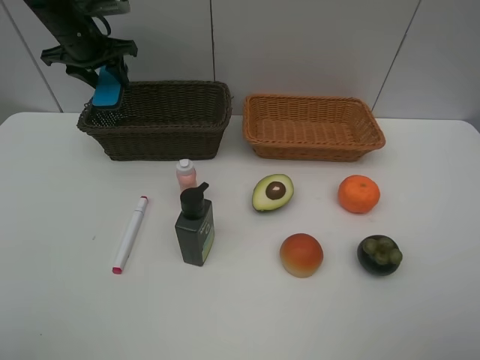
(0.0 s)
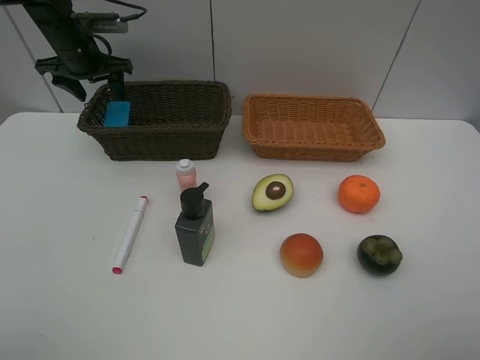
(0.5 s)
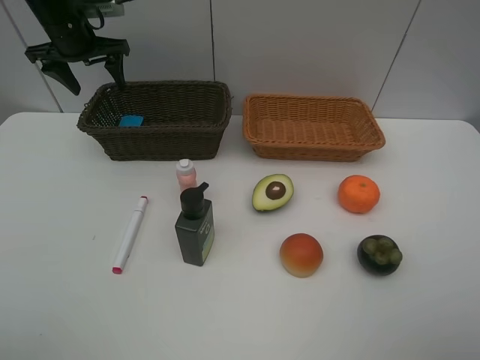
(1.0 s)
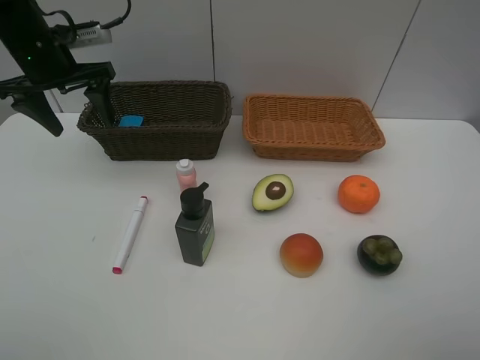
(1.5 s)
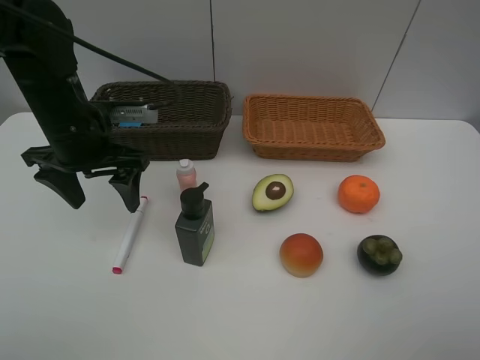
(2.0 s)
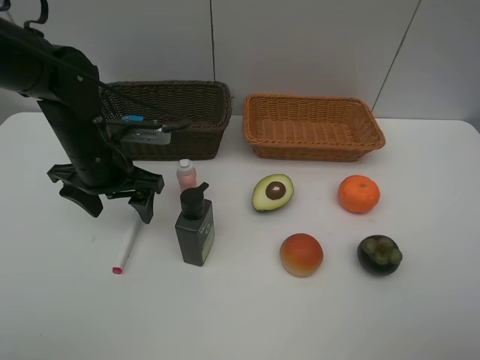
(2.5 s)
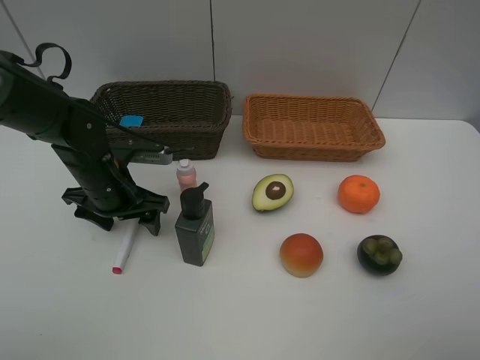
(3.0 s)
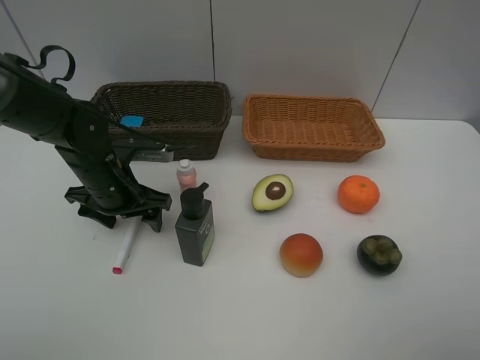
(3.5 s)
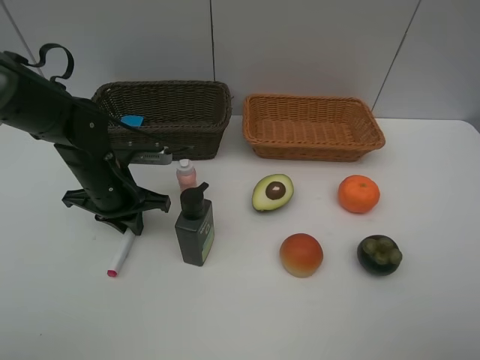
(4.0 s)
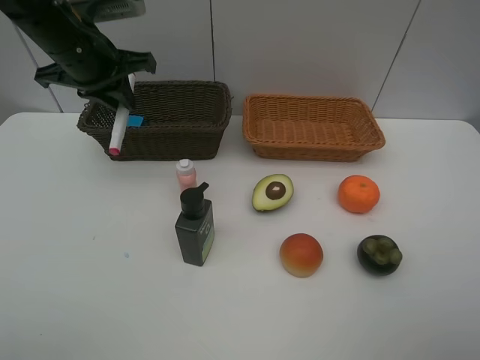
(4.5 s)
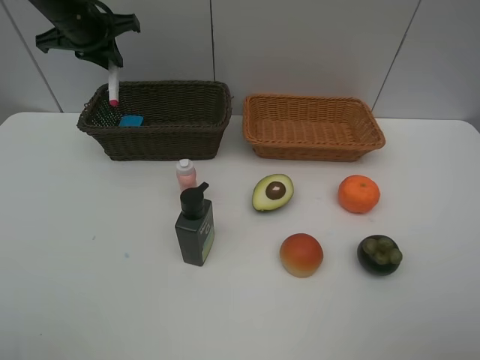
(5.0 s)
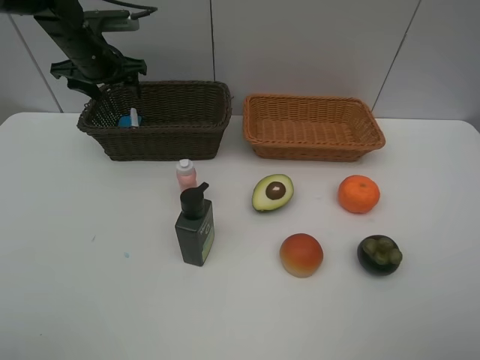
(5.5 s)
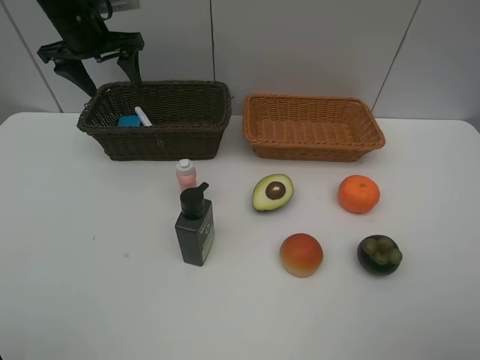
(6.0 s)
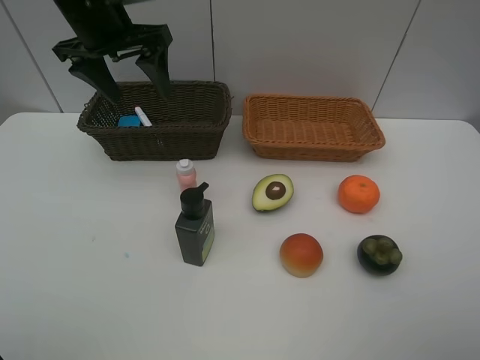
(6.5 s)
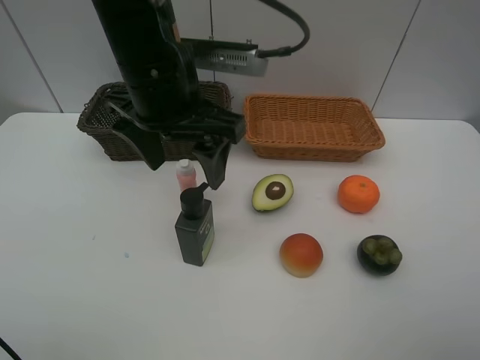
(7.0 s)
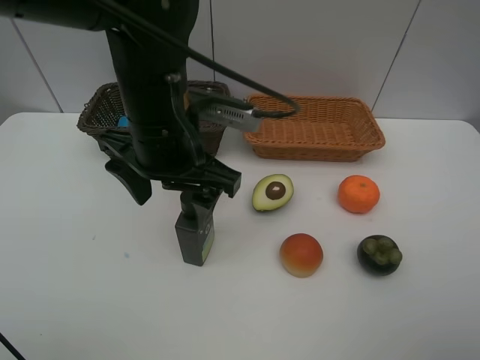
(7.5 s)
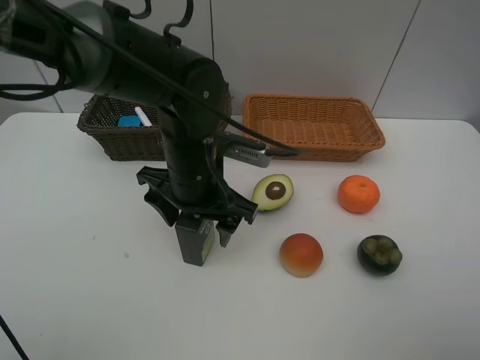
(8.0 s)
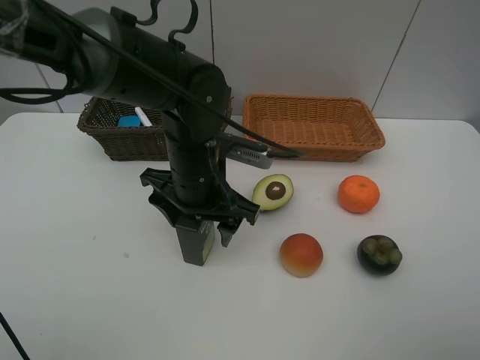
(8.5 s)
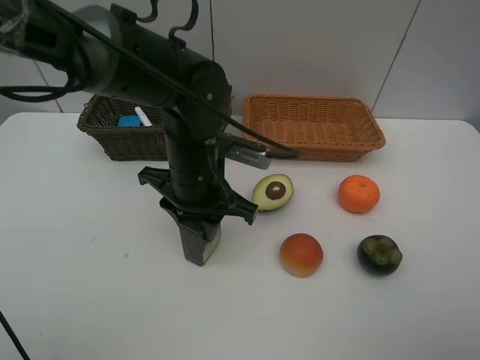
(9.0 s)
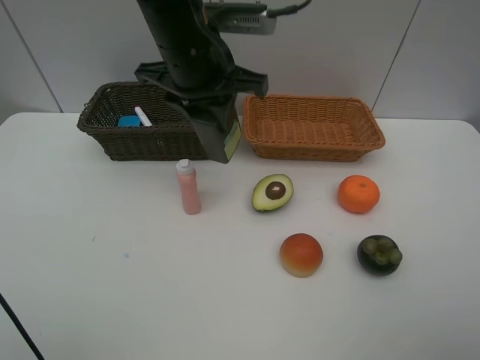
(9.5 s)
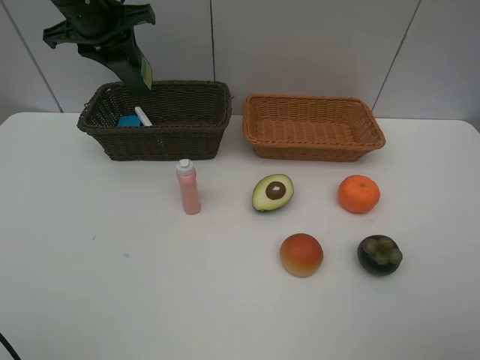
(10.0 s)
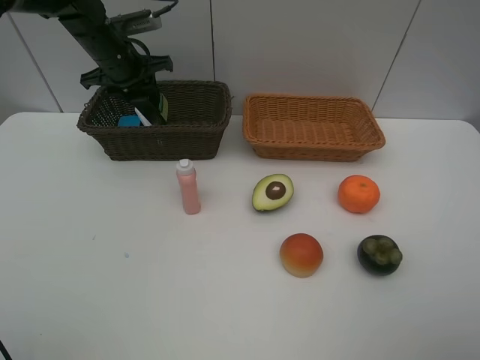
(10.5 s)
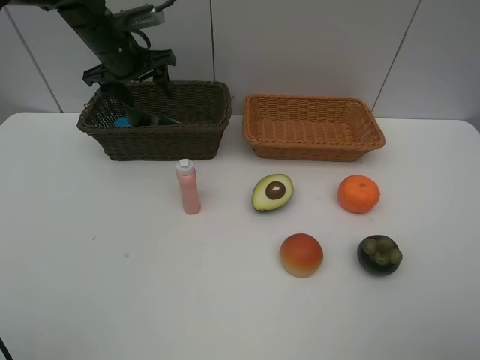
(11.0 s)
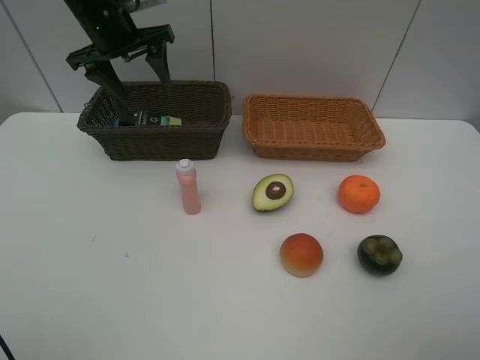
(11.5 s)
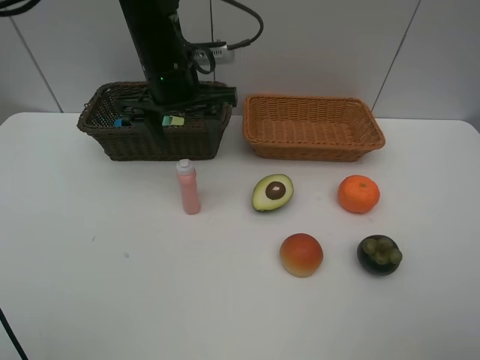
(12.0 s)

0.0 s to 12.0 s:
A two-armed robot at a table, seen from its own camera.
Task of the whole recording: Place multiple objects separately in different baskets.
Step, 1.0 to 4.0 s: Pick up the red marker with left gripper.
Step, 4.5 to 5.5 s: Place the red marker in the dark basket with left gripper.
Step, 6.0 to 9.0 s: Pick up the hard facial cleanser with left gripper.
Step, 9.5 to 10.5 s: Place the hard facial cleanser in the dark basket with left gripper.
0.0 to 2.0 s: The left gripper travels backward by approximately 20 cm, and opens.
2.0 to 4.0 s: The left gripper goes approximately 10 cm downward, and closes up.
4.0 to 6.0 s: The left gripper is displaced forward and upward by some 25 cm, and opens up.
6.0 to 8.0 s: The left gripper heads backward, to the right and downward, covering approximately 30 cm.
8.0 to 10.0 s: The left gripper heads forward, to the left and upward, covering roughly 30 cm, and closes its fingers.
10.0 to 12.0 s: The left gripper travels to the right and backward by approximately 15 cm, and opens its fingers.

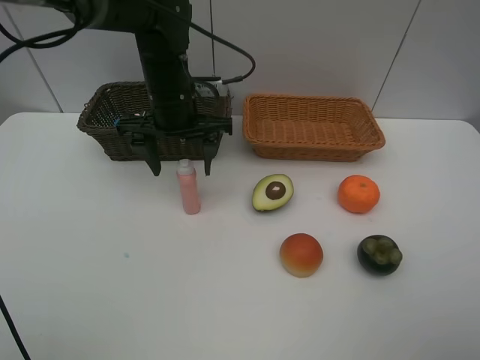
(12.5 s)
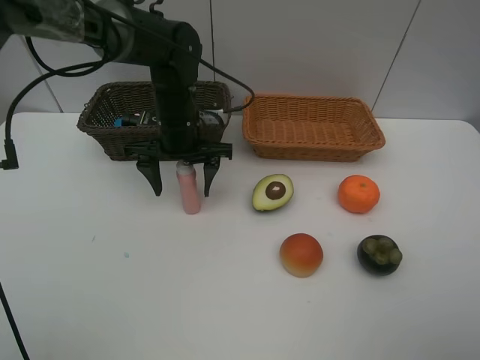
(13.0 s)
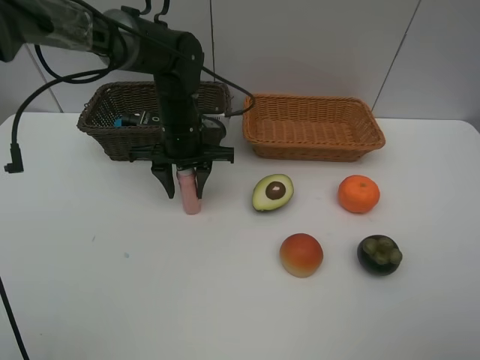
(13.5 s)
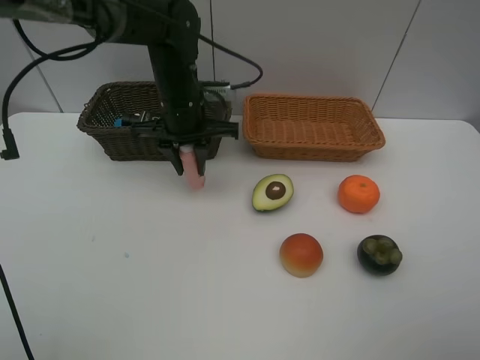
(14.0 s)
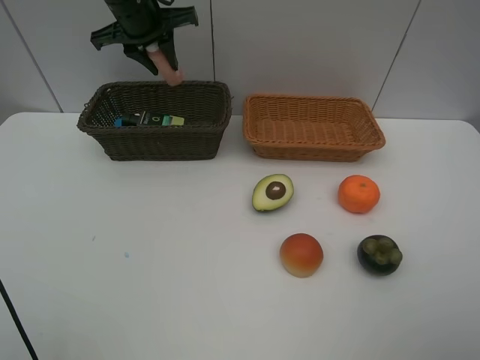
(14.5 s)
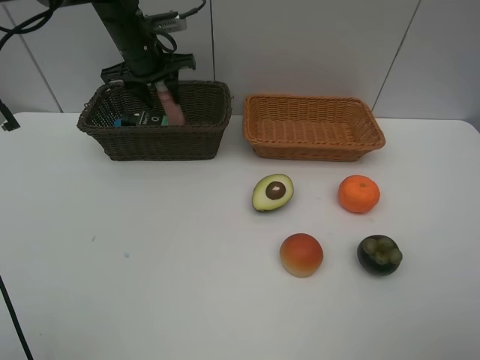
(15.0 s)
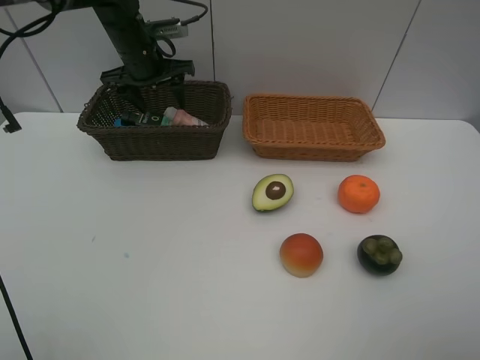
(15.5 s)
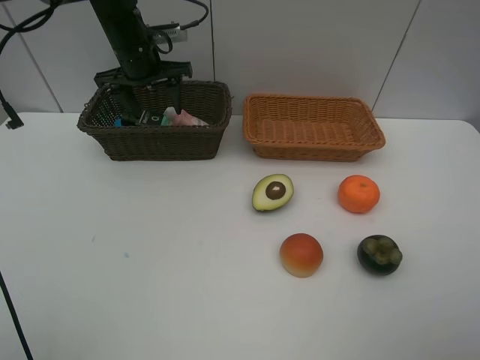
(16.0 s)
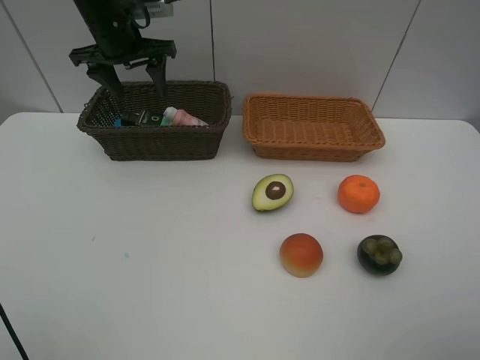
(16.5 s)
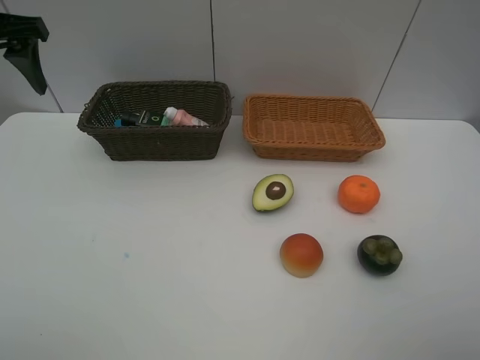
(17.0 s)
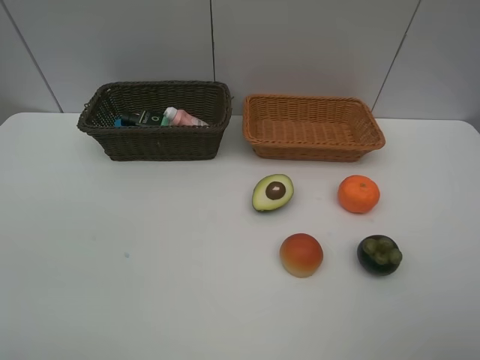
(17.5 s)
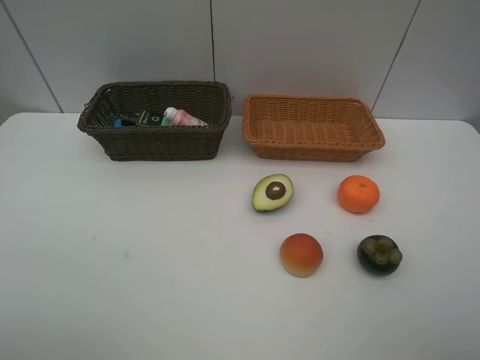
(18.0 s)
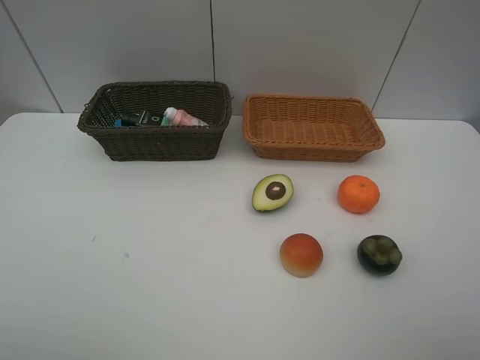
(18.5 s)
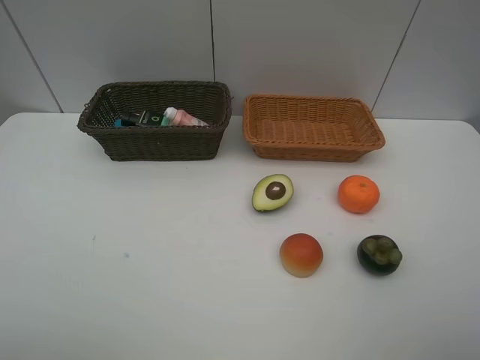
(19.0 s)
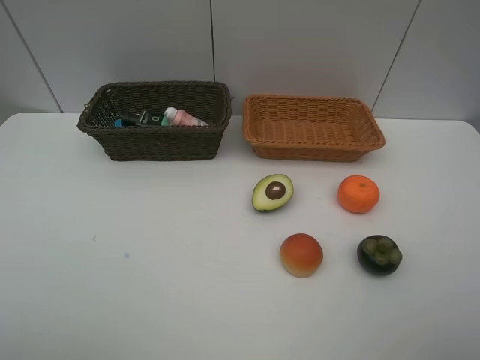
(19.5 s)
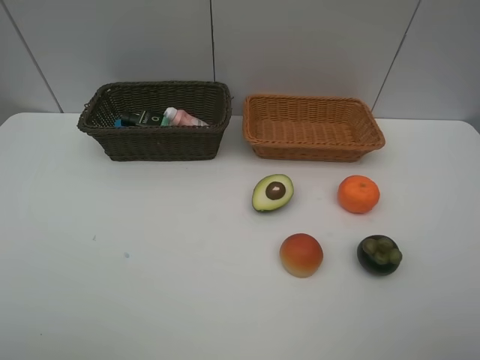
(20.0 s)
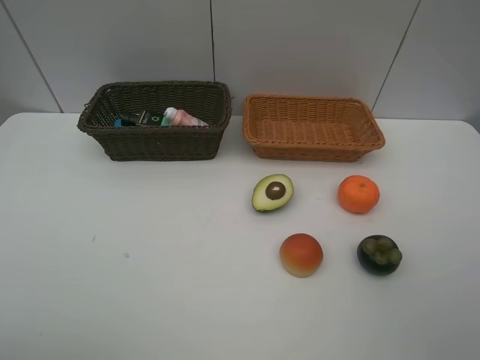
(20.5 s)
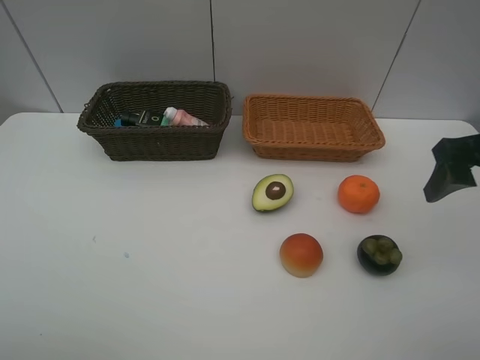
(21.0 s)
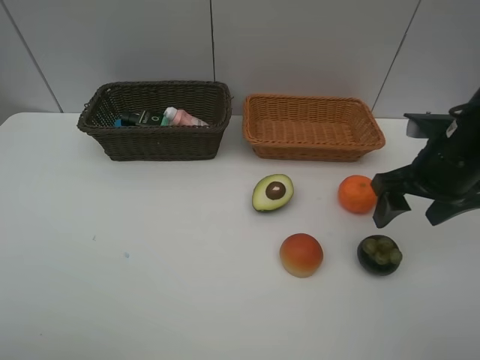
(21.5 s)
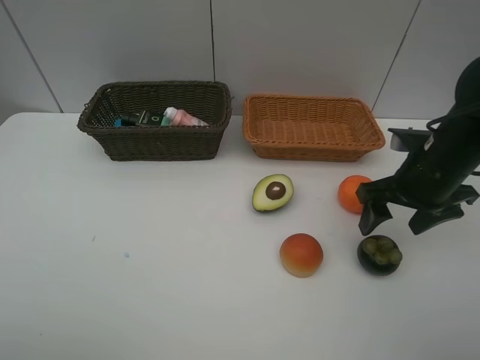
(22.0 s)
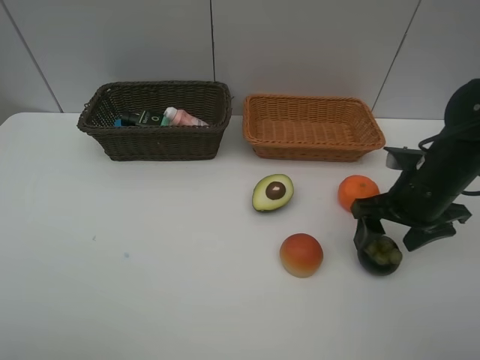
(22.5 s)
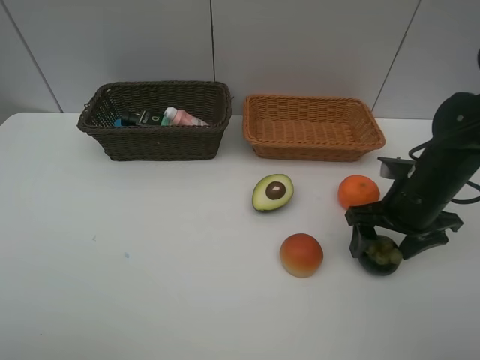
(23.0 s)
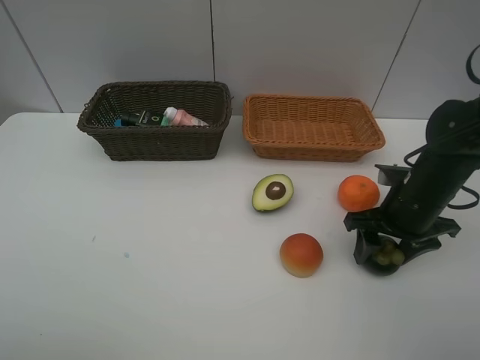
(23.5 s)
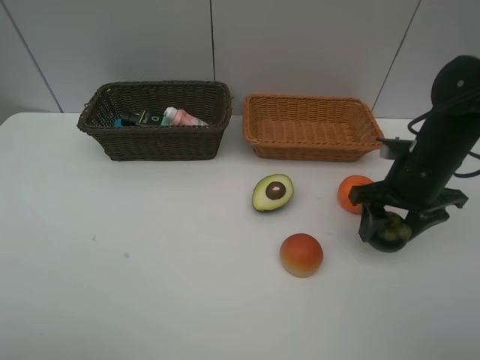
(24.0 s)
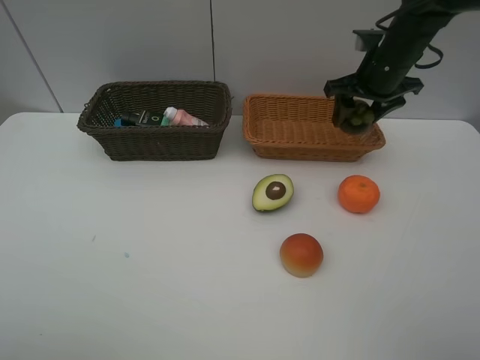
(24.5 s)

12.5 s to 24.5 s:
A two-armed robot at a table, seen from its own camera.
Task of the whole recording: Place multiple objects separately in different baskets.
Step, 14.0 to 15.0 s: Place the laundry detergent in the dark basket with left gripper.
Step, 15.5 to 24.0 s: Pick up the mangosteen with right gripper.
12.5 to 14.5 s: The left gripper heads forward, upward and to the left, covering approximately 15 cm, and closes up.
14.5 to 16.5 s: The left gripper opens its fingers.
16.5 to 18.5 s: The left gripper is displaced backward by some 50 cm.
20.5 to 22.5 s: The right gripper heads forward and downward, covering some 20 cm.
22.5 to 24.5 s: The right gripper heads forward and upward, covering approximately 20 cm, and closes its fingers.

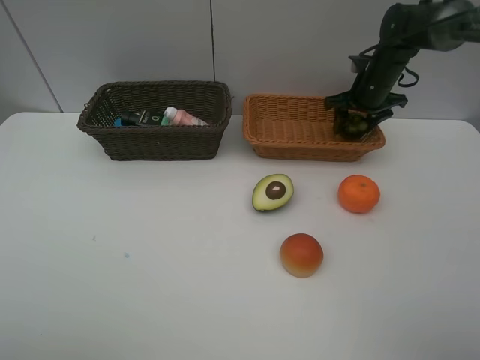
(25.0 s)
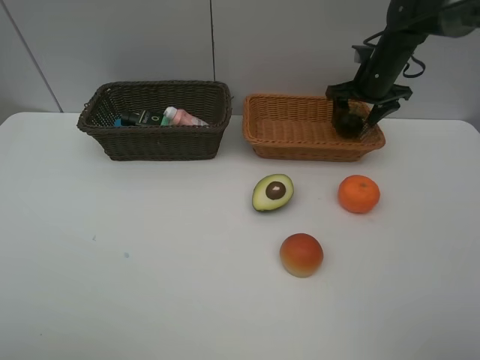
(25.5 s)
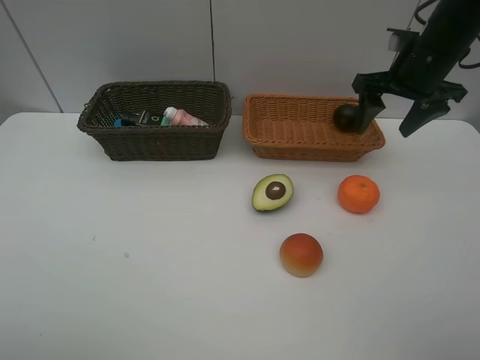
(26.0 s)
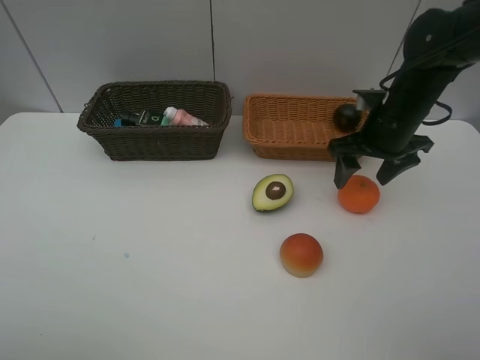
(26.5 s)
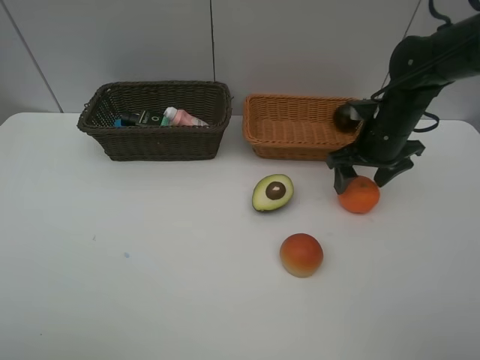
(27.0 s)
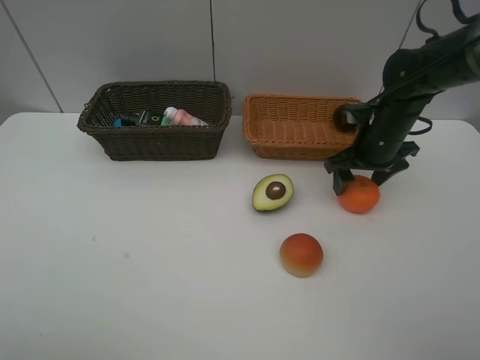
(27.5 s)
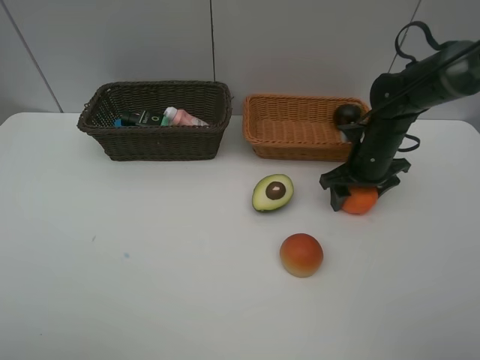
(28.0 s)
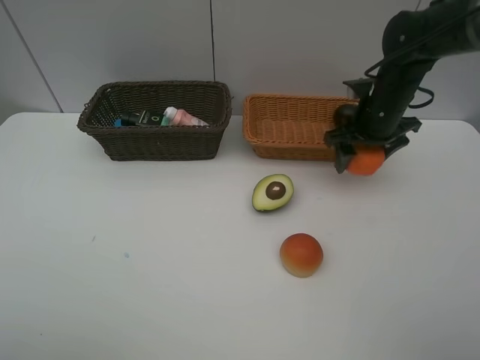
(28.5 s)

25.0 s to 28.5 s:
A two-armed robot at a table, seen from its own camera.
Task of the whole recording: Place multiple objects separately in different baskets.
Step, 26.0 to 28.0 s: Pick up the orange with right gripper.
25.0 to 27.0 s: The right gripper goes approximately 15 cm backward, and opens its fingers.
27.0 to 28.5 s: The grippers move only a little.
